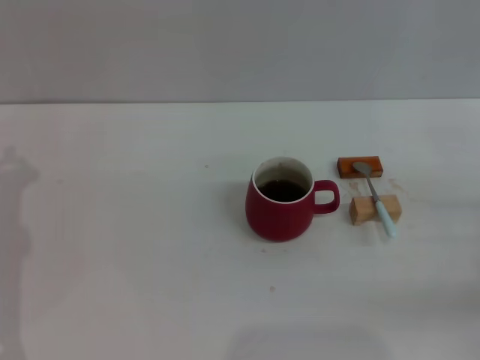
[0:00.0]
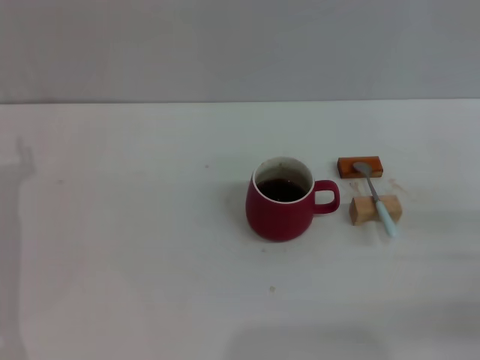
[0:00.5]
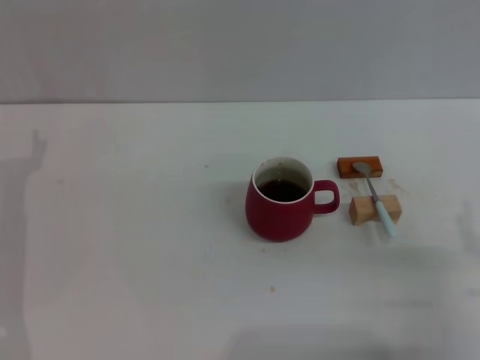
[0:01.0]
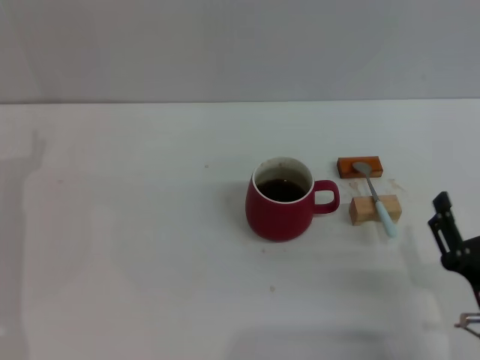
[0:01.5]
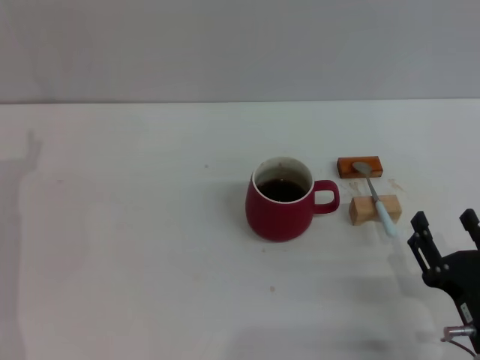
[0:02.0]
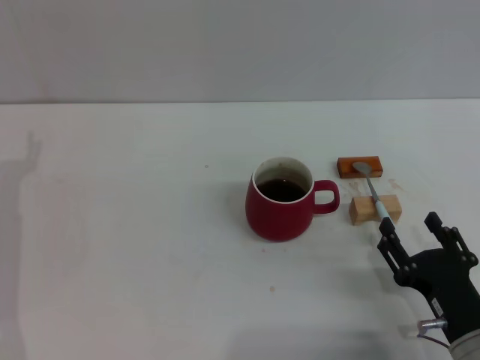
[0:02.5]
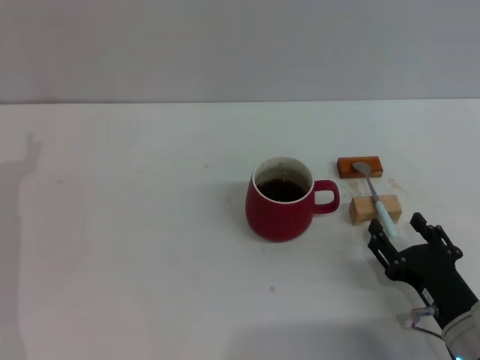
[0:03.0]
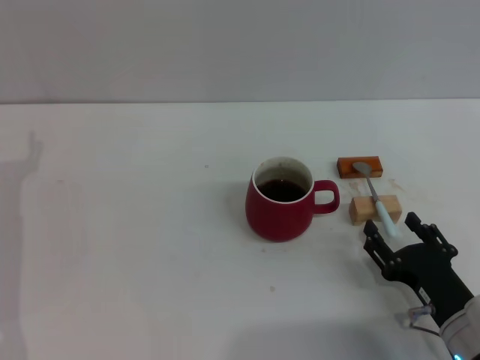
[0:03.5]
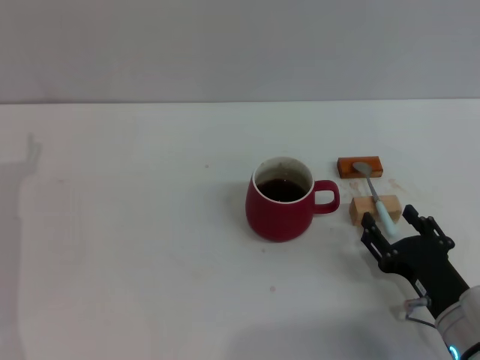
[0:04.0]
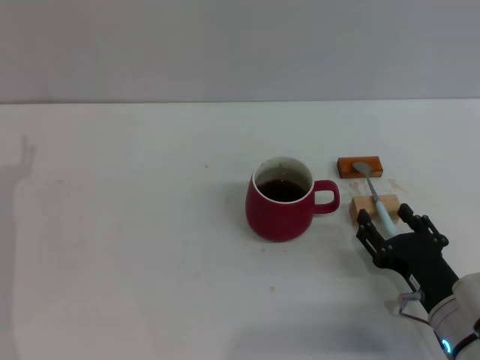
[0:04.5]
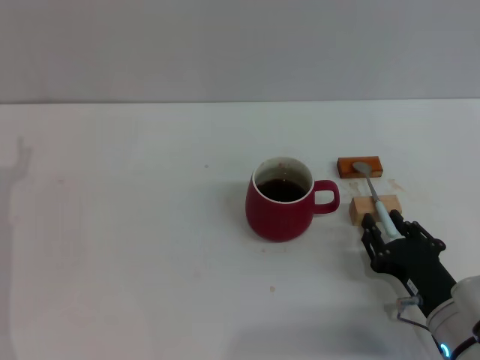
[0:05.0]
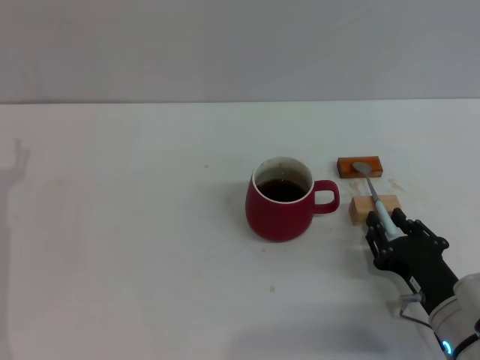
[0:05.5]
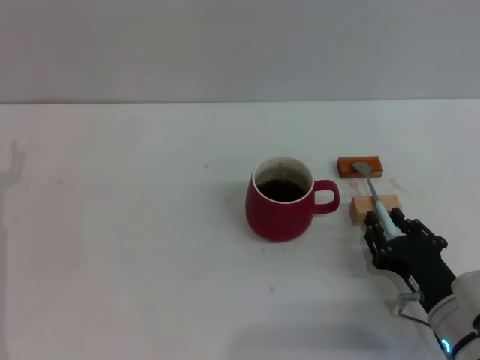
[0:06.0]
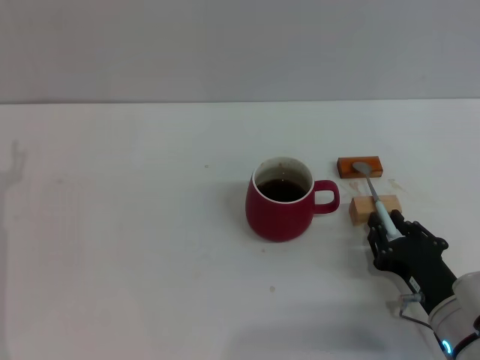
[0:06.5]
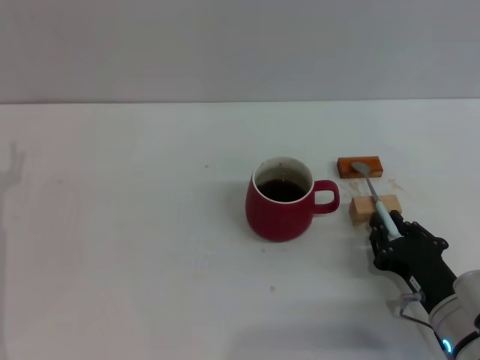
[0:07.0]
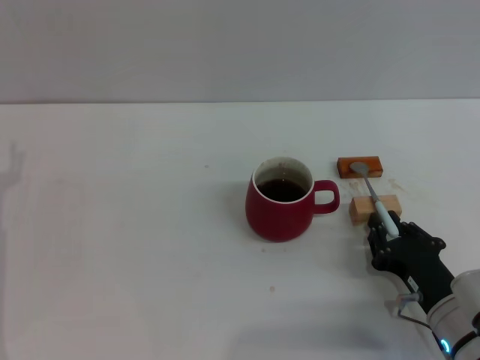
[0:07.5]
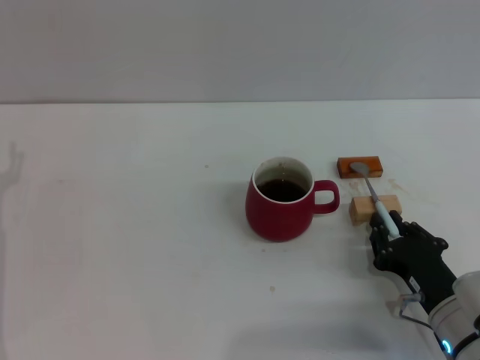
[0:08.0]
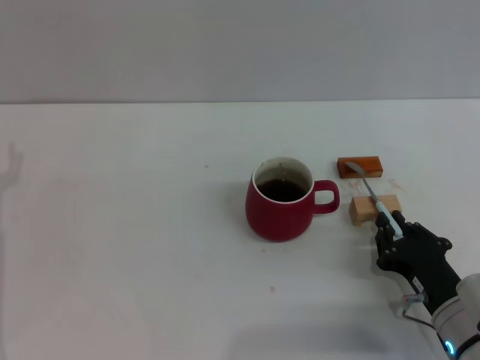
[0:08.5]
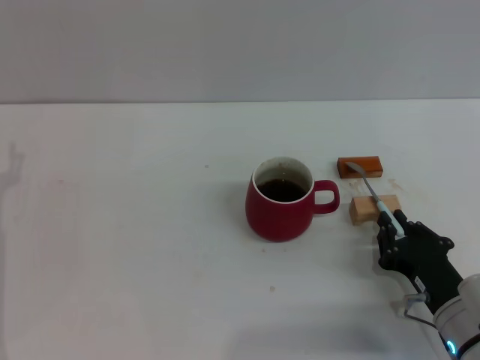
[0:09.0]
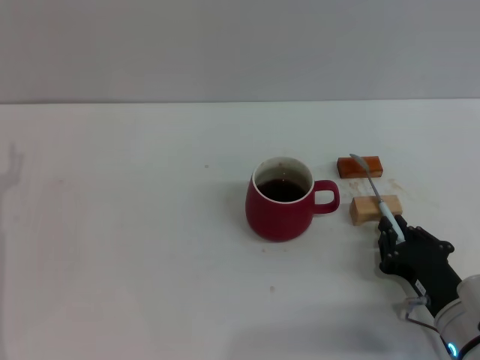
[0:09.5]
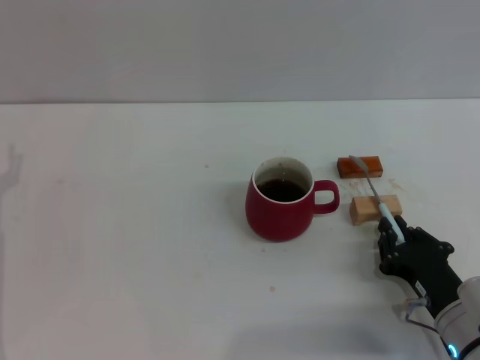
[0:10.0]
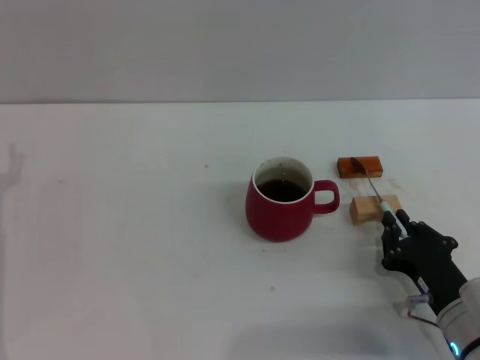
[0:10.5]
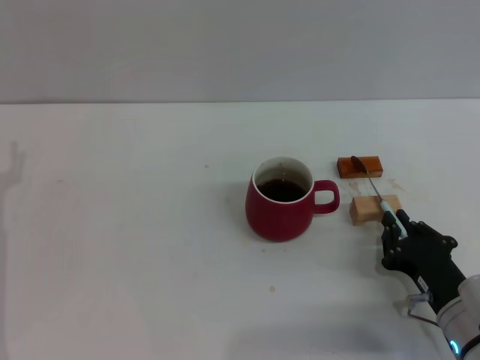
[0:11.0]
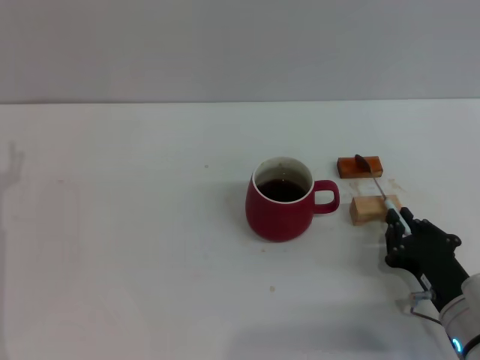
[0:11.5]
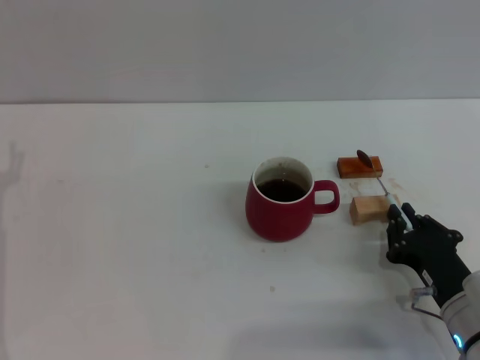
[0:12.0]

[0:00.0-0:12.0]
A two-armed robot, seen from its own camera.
Task of the whole recording: Move the red cup to the center, lift the blue spoon, stir it three times in the cup, and put the spoon into the cup.
0.0 to 2.0 s: The right gripper moves to the left, backward and downward, about 20 cm.
2.0 to 4.0 s: The right gripper goes some 5 cm forward.
4.0 to 6.0 s: The right gripper closes its fingers.
6.0 to 12.0 s: Neither gripper changes place.

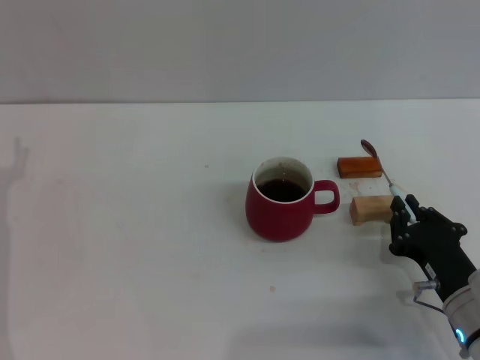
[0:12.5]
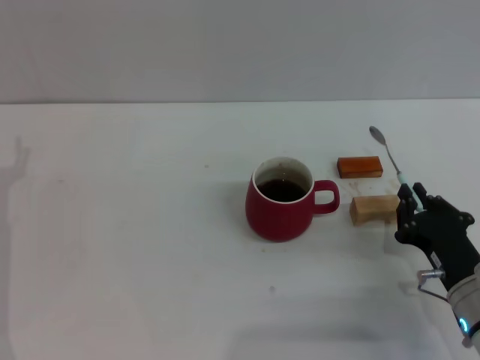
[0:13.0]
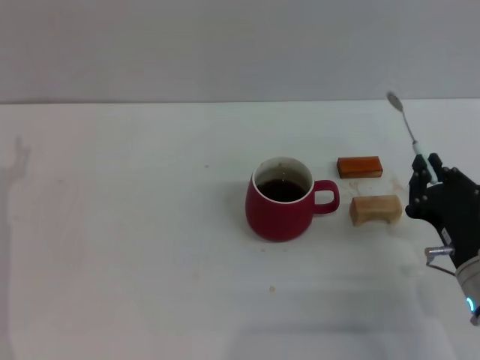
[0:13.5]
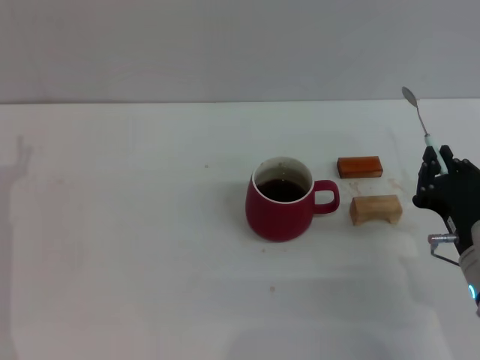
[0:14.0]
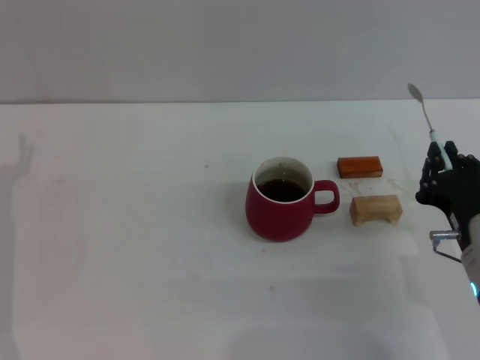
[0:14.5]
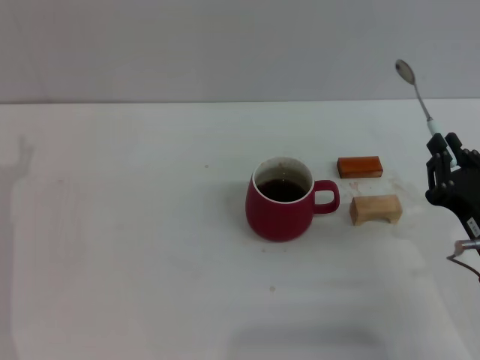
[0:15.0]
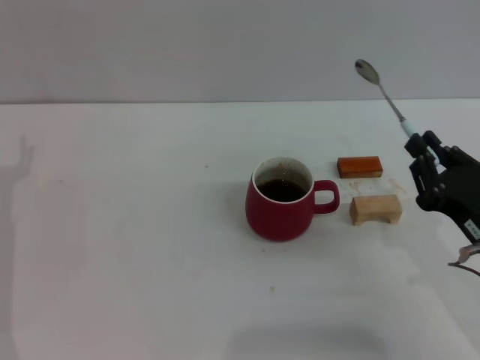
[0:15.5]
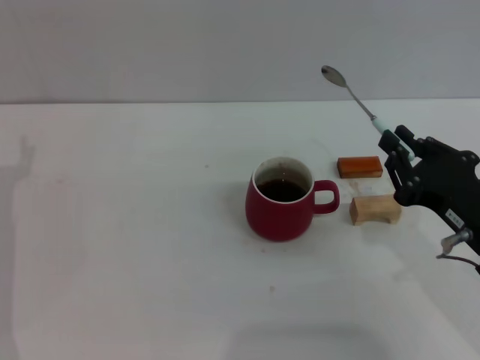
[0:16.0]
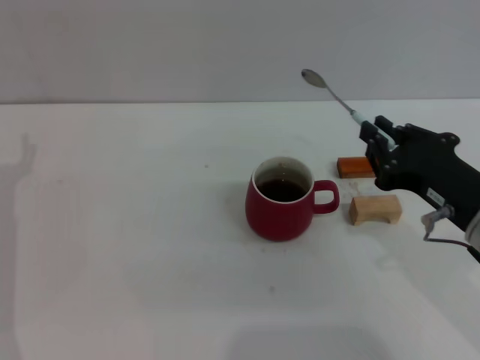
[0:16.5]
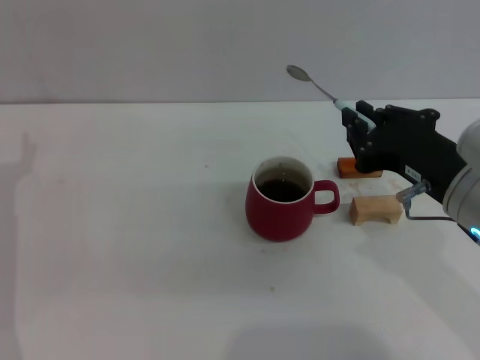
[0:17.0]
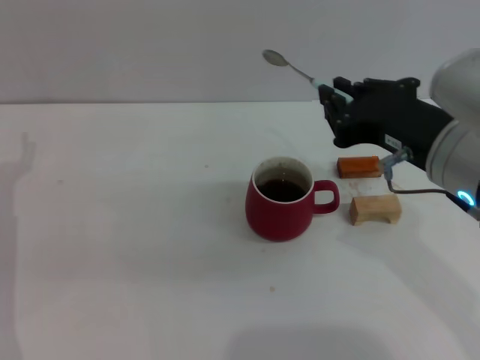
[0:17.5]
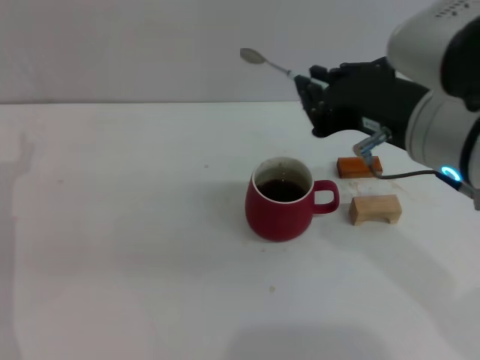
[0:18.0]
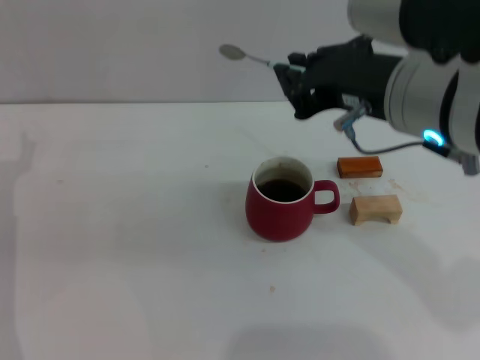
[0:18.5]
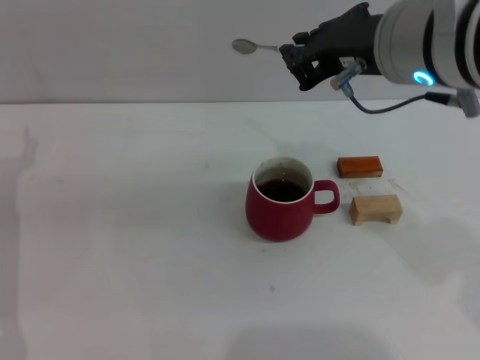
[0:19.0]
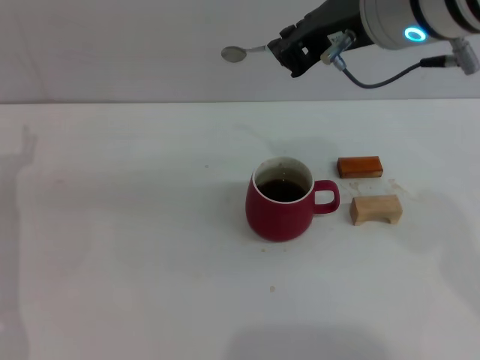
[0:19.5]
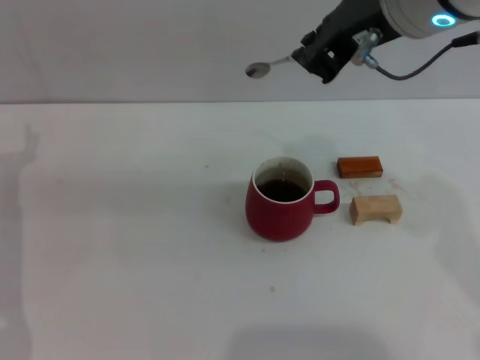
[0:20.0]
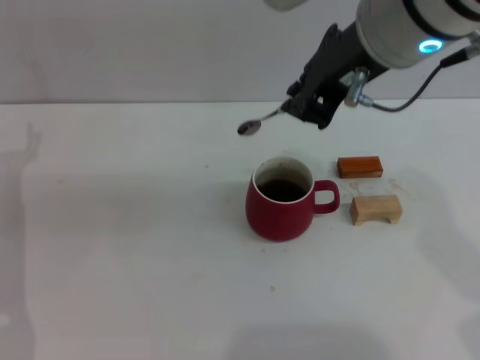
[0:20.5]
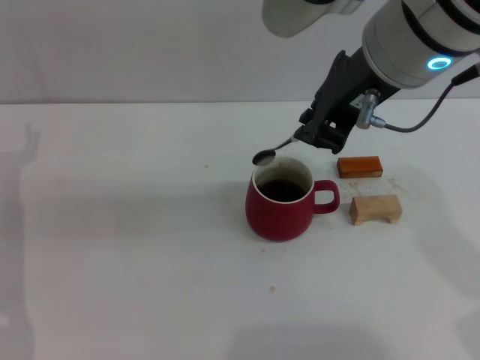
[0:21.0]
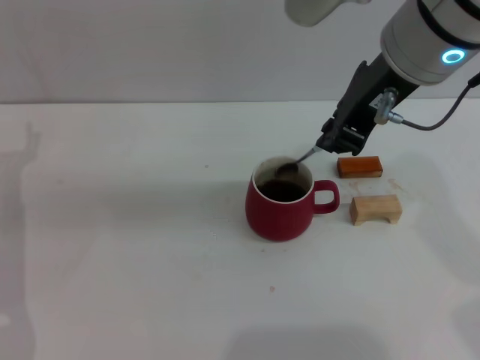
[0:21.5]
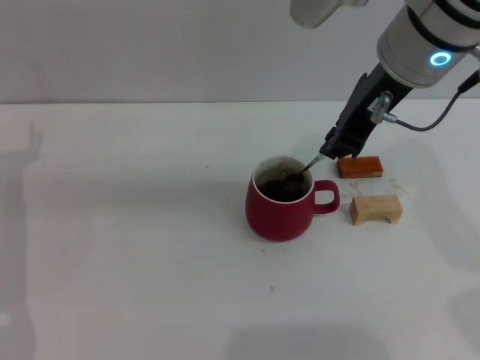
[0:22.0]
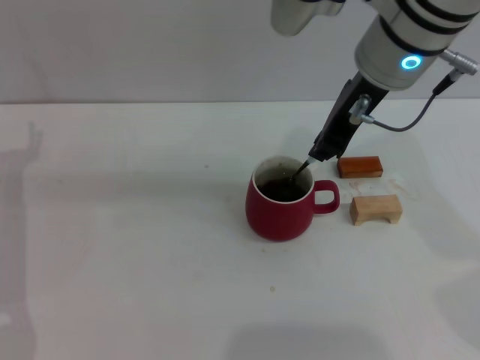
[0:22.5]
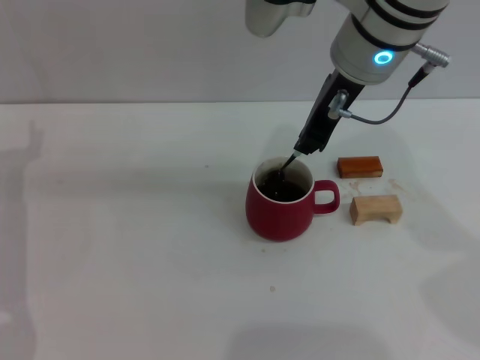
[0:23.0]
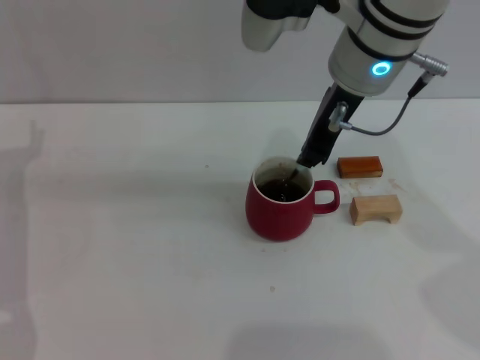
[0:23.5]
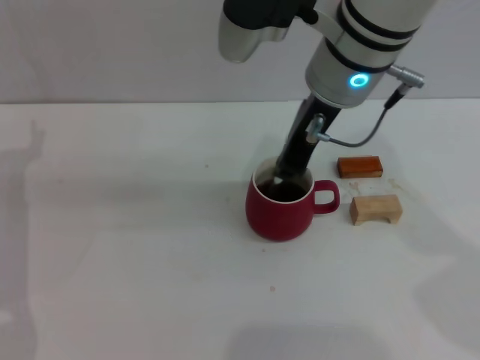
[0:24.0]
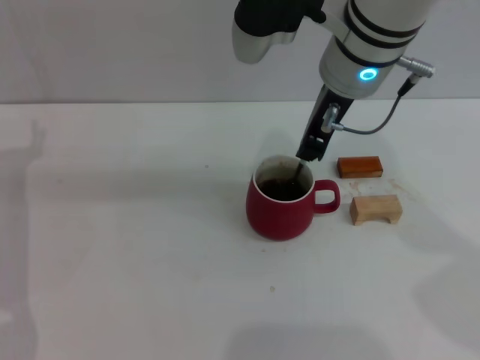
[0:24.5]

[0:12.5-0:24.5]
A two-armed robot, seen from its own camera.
Task of the whole recording: Move the red cup to the center, lift the blue spoon, stir it three times in the cup, and put the spoon into the cup.
12.5 to 14.5 s: The right gripper is displaced upward by about 5 cm.
14.5 to 16.5 s: The right gripper moves upward, about 10 cm.
16.5 to 18.5 s: The right gripper goes some 15 cm upward and to the left.
18.5 to 20.5 s: The right gripper travels upward and forward by about 5 cm.
20.5 to 22.5 s: The right gripper heads forward and downward, covering approximately 10 cm.
22.5 to 24.5 s: There are only small adjustments of the grippers.

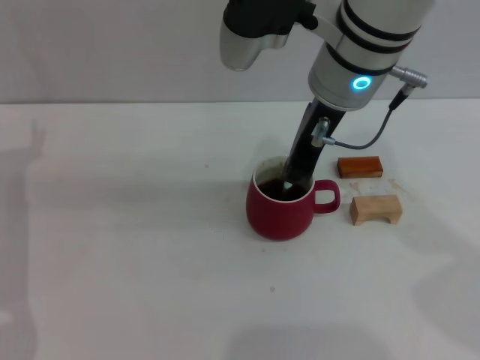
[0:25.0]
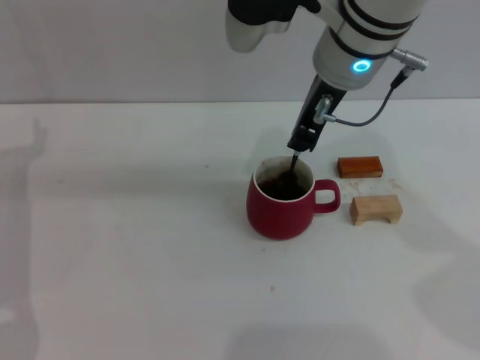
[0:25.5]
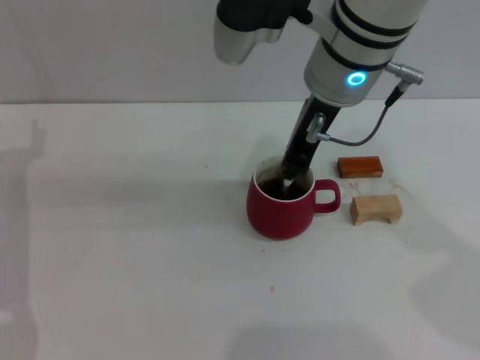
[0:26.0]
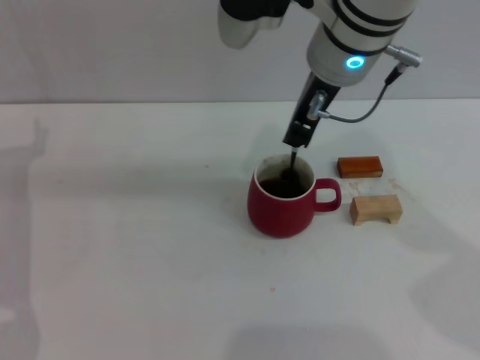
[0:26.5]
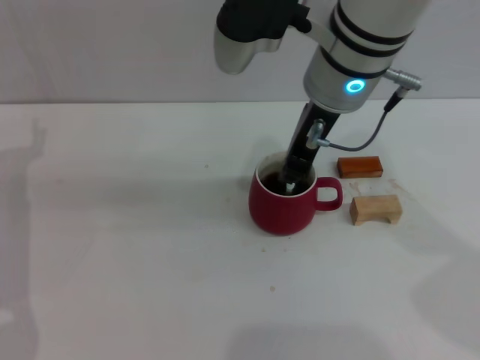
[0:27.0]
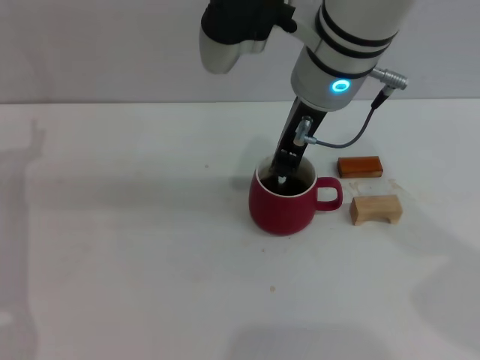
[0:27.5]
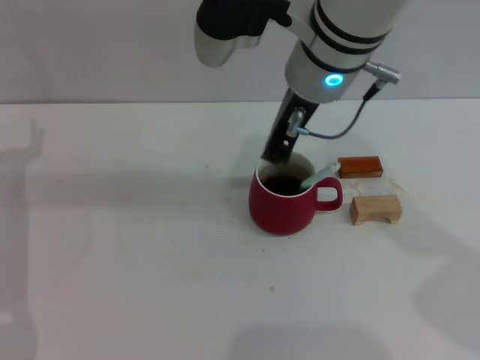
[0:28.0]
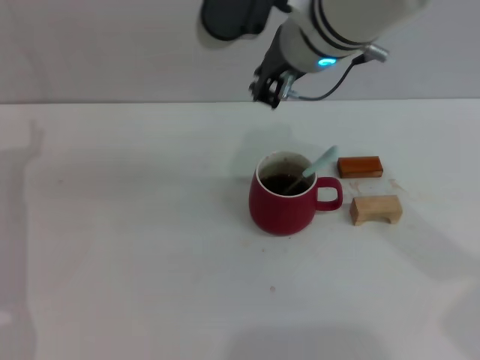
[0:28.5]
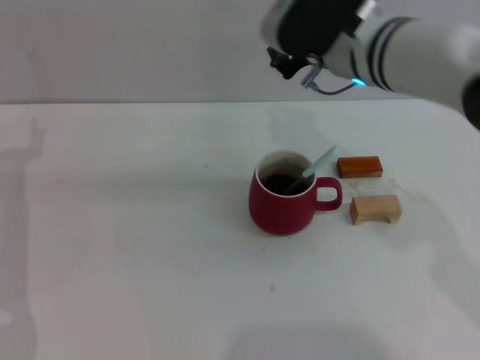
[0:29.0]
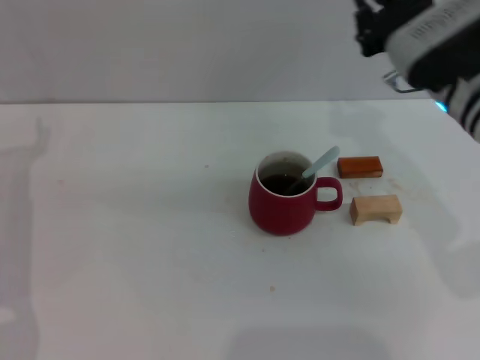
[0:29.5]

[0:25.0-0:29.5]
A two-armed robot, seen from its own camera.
Task of the whole recording: Move the red cup to the center, lift the blue spoon, stir it three times in the cup, and put the spoon into the cup.
Step, 25.0 to 28.0 s: Stir the coffee in the cup with the right gripper.
25.0 to 27.0 s: The grippers make only small movements.
27.0 to 29.5 s: The right gripper heads to the right and downward, covering some 15 cm.
